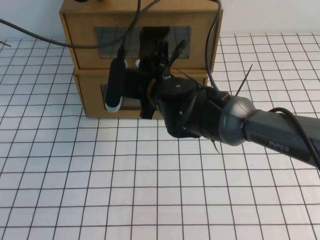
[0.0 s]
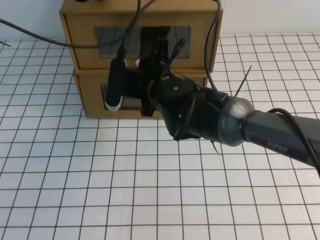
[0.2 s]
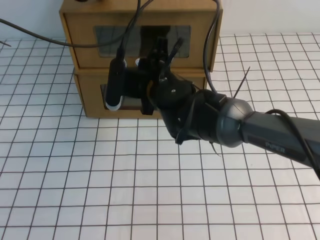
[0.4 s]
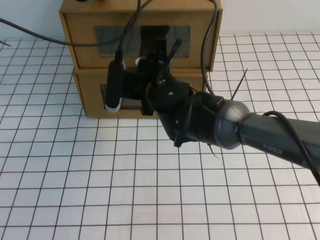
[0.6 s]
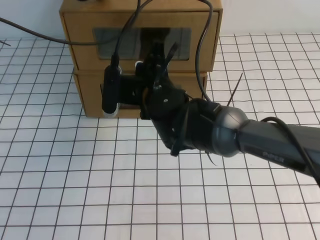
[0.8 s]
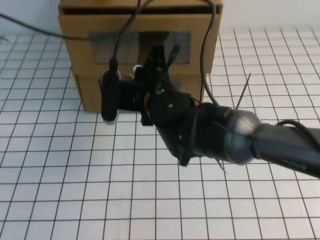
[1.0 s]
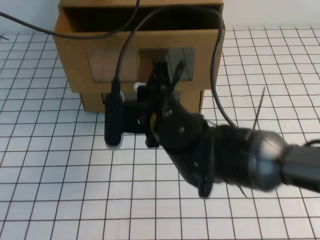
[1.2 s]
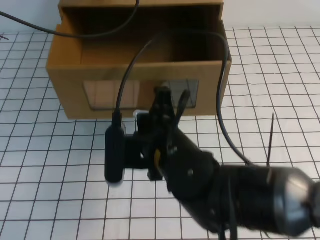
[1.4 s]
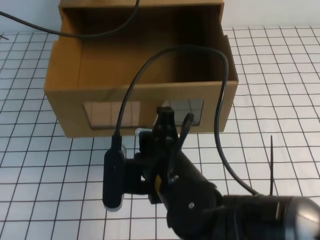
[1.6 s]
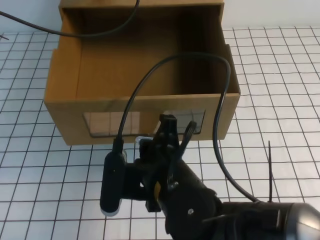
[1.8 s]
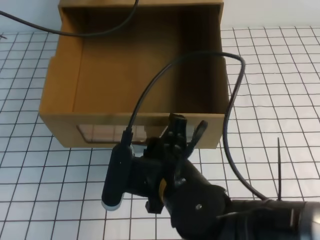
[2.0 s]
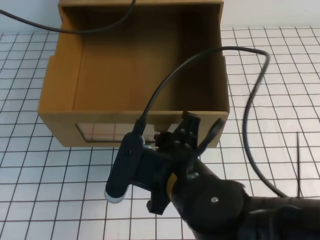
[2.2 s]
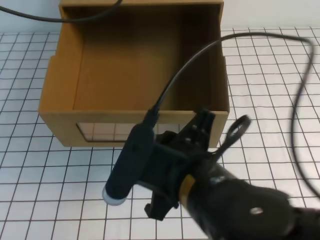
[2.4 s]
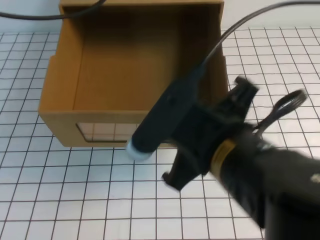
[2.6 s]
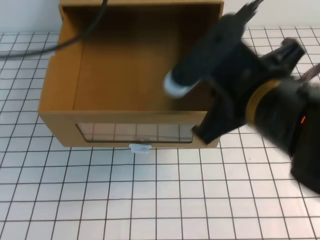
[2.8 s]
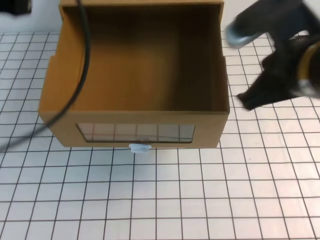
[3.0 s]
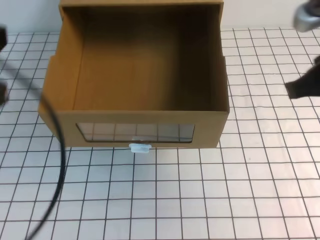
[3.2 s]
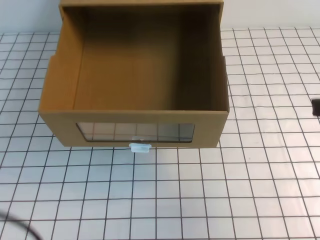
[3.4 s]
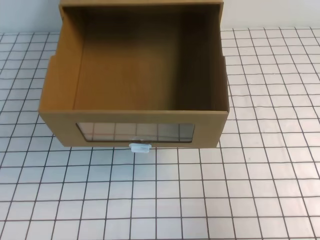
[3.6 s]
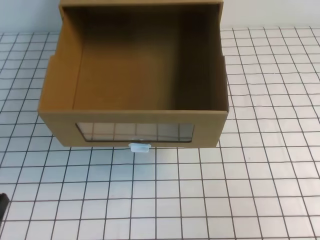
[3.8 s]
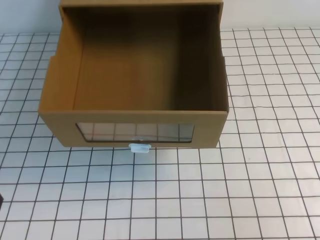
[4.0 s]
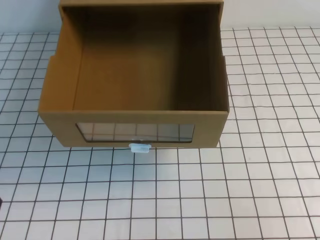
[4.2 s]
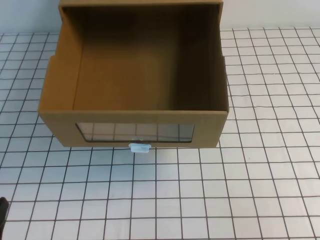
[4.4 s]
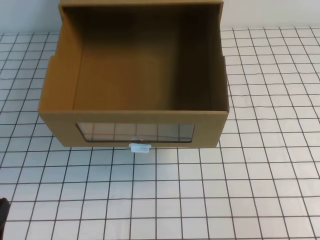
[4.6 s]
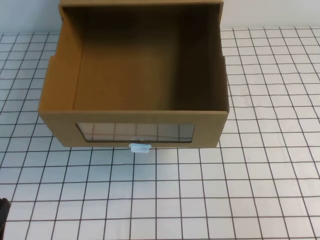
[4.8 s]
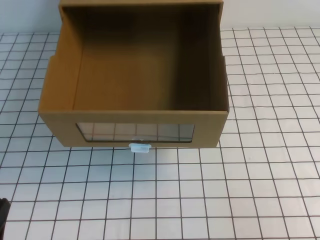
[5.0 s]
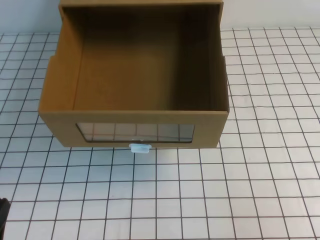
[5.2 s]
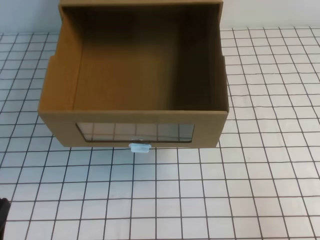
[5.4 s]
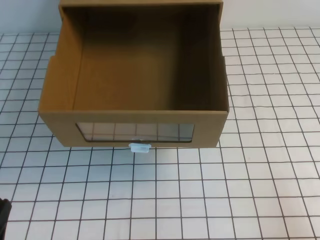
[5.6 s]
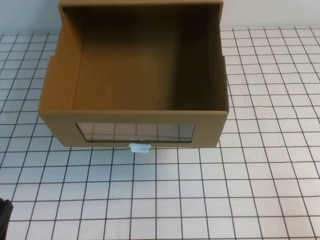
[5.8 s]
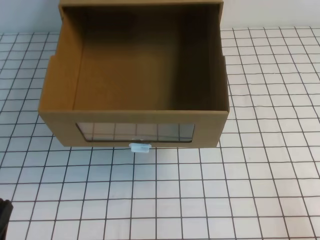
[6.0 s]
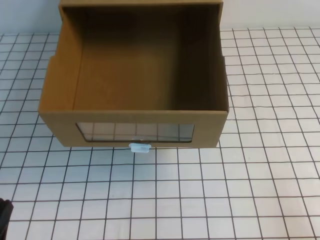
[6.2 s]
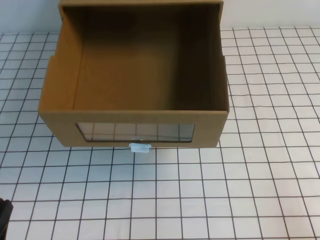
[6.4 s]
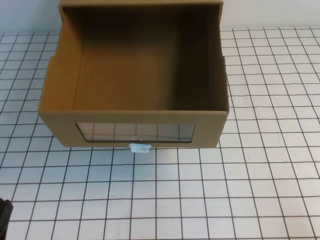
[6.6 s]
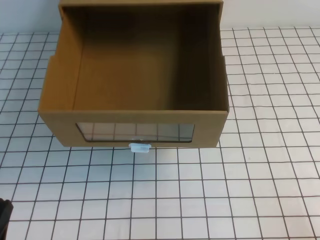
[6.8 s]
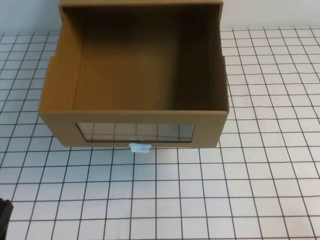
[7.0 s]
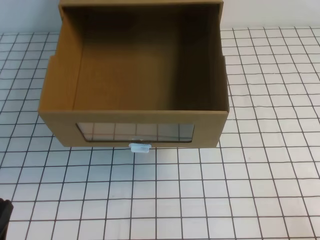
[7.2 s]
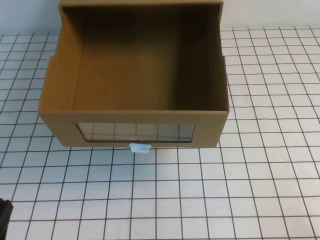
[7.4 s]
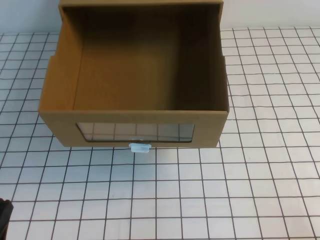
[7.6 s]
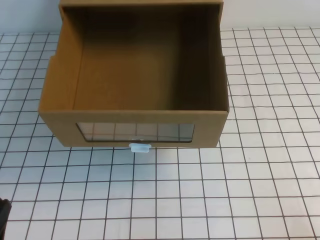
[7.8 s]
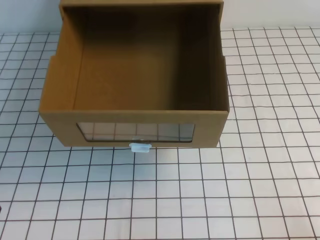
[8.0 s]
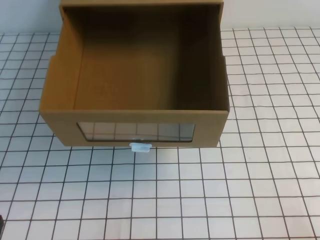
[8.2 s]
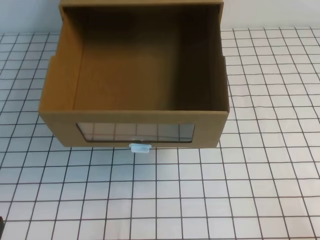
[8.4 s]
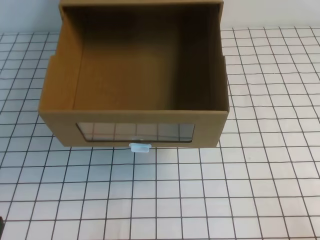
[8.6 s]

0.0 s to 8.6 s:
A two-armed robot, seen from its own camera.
Task of the whole recording: open the shoebox on the white tablecloth.
Step, 0.0 to 8.6 s: Open the shoe box.
0.0 to 1.4 s: The right gripper travels backward by roughly 10 cm, and closes its fingers.
1.4 to 2.8 s: The right gripper goes about 15 cm upward, backward and to the right, and opens, then closes again, while the left gripper travels backward and upward by some 15 cm.
2.8 to 4.4 s: The left gripper goes some 40 cm downward and backward. The right gripper shifts approximately 20 cm to the right.

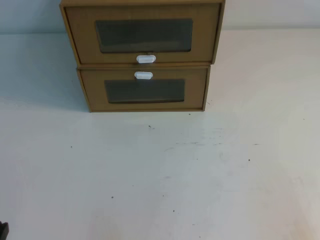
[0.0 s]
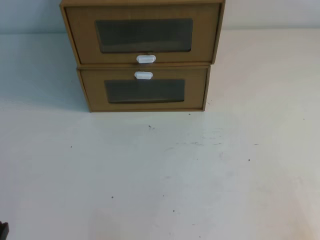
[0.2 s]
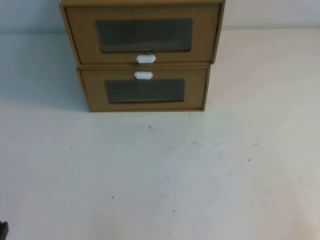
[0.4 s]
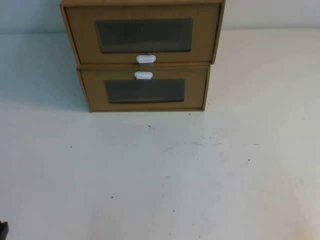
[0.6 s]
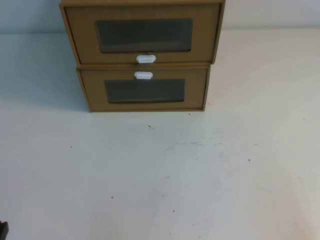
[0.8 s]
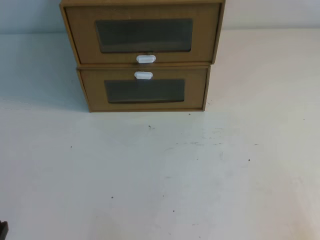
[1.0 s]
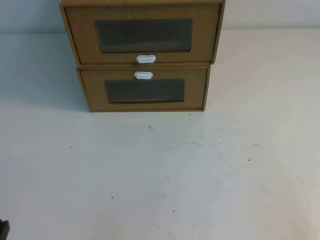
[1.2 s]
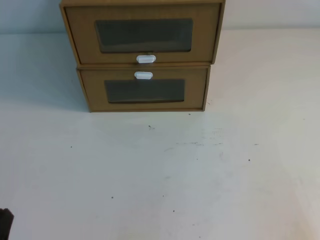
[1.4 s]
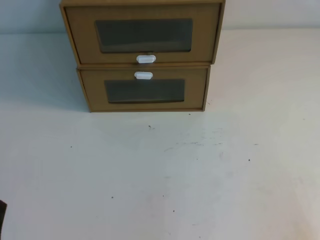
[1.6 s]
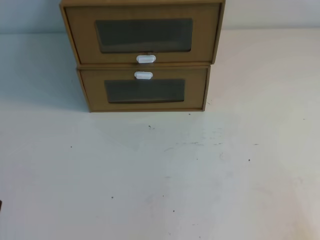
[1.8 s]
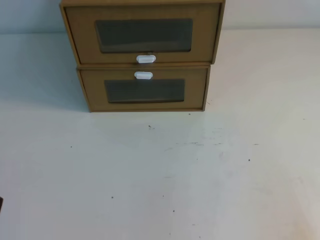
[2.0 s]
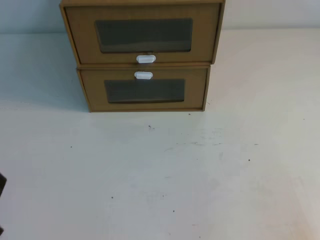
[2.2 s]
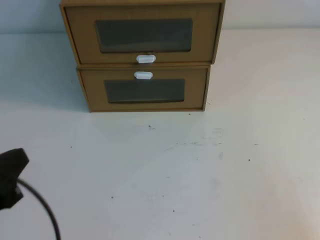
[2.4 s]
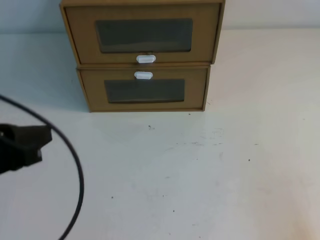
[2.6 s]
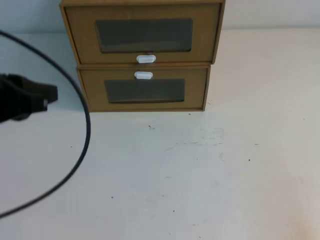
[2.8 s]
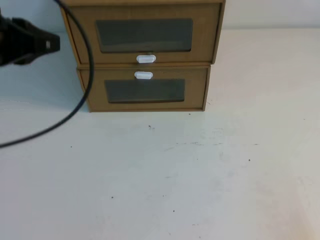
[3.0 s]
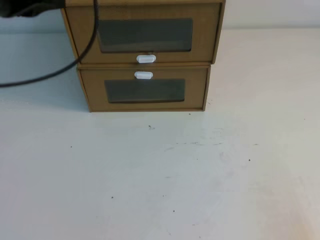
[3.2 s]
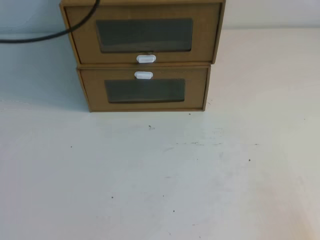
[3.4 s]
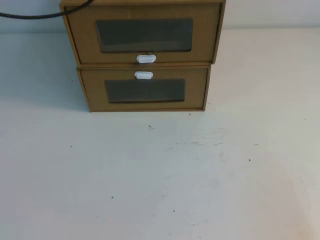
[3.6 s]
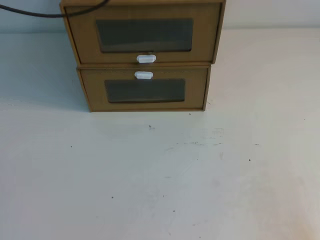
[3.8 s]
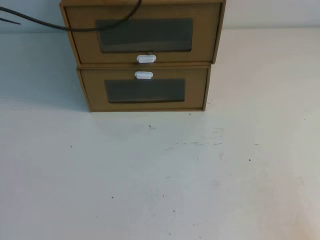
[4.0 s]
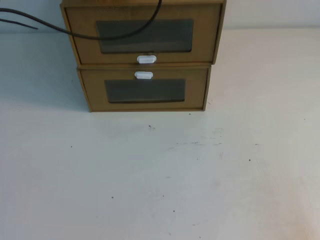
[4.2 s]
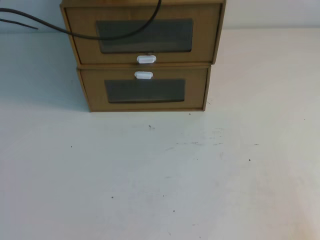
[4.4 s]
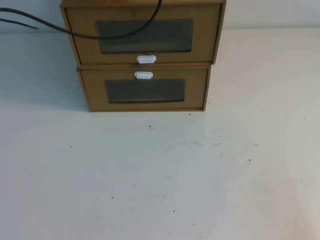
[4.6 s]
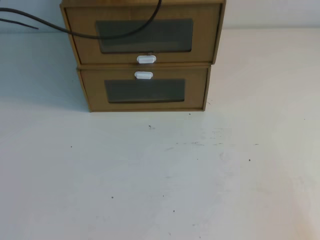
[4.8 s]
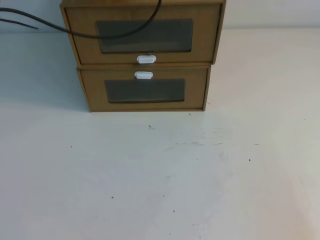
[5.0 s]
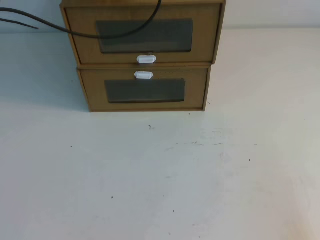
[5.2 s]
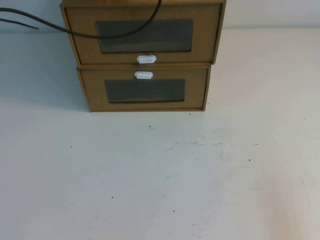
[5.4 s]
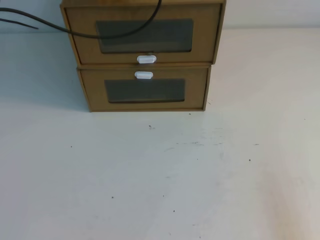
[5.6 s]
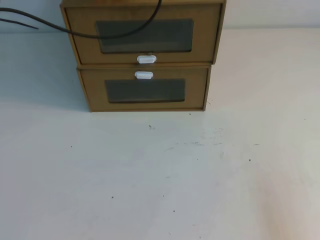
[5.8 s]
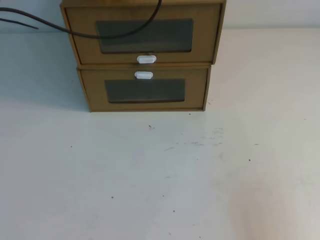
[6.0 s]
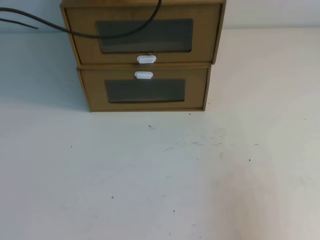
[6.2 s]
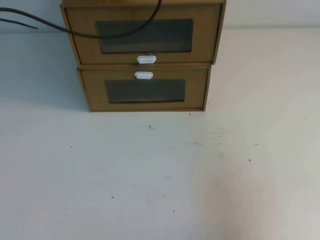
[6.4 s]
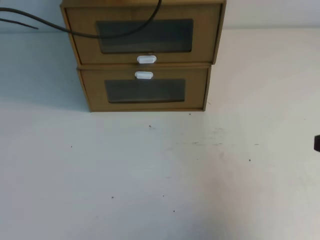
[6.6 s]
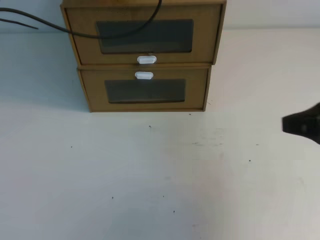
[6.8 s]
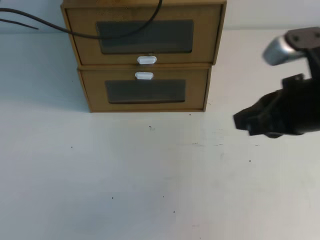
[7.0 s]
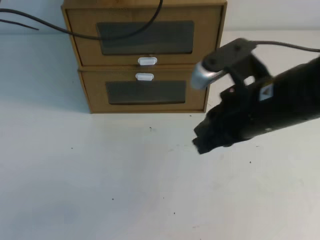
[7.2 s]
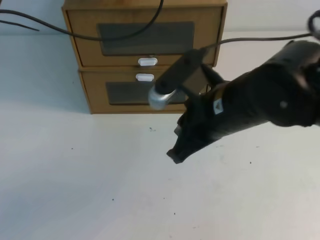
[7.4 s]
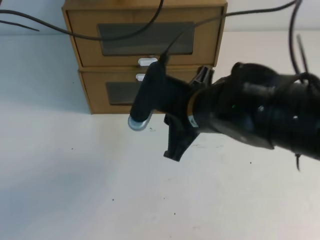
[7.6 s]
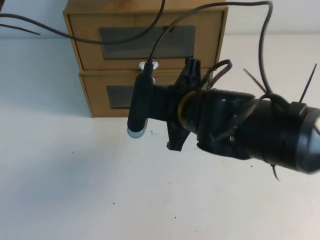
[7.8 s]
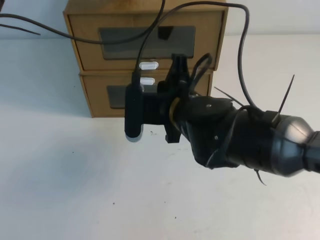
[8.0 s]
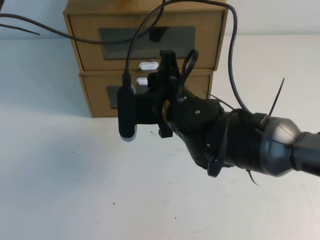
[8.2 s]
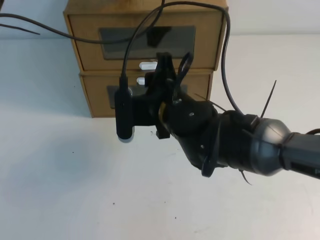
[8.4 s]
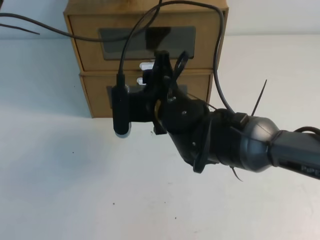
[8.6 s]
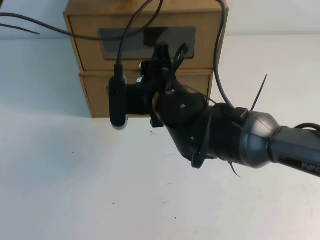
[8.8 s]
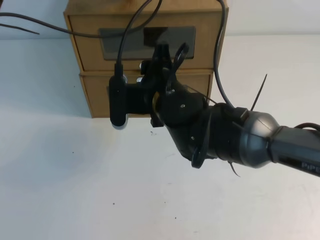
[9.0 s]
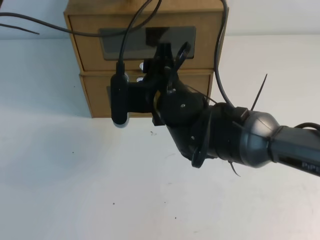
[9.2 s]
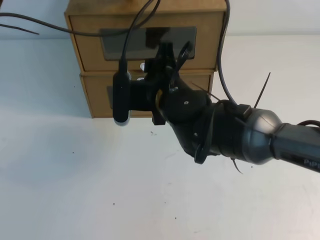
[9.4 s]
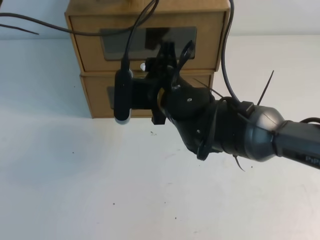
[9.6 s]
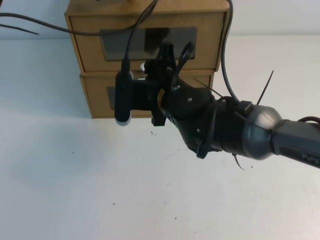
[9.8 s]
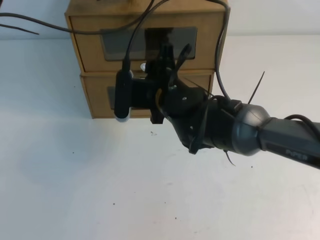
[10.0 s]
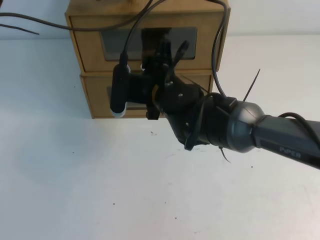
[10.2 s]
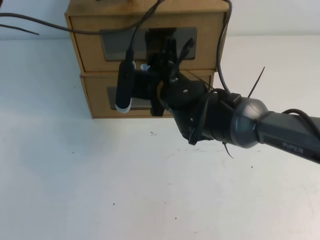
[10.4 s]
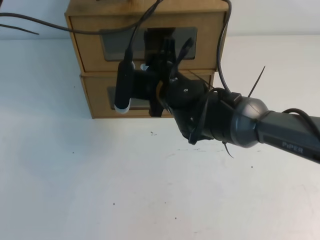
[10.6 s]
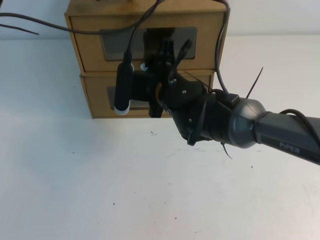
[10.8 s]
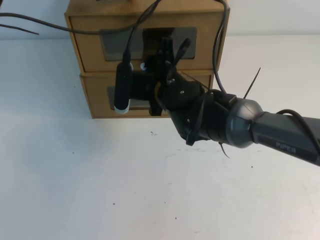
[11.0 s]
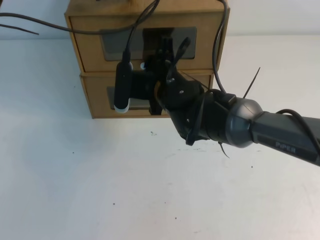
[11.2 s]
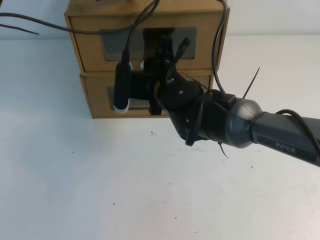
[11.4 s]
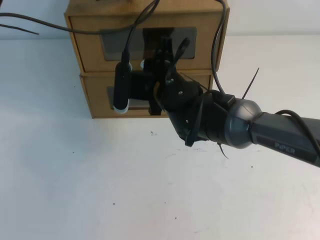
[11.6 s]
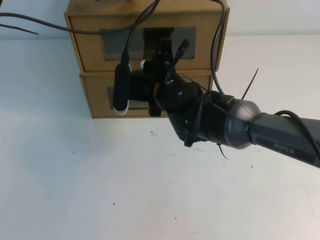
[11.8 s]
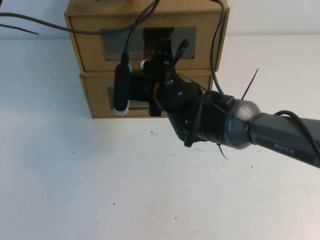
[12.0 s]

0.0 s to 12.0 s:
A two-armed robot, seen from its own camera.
Task of the whole recording: open the shoebox on the table.
1.6 to 3.0 s: The left gripper shifts about 30 cm upward and forward.
3.0 to 4.4 s: The left gripper shifts some 20 cm forward.
6.0 to 7.6 s: The right gripper heads to the left and forward, covering roughly 30 cm.
7.6 to 9.0 s: The right gripper goes some 10 cm to the left and forward, and opens up.
9.0 to 10.4 s: The grippers move only a little.
10.4 to 12.0 s: The right gripper closes.

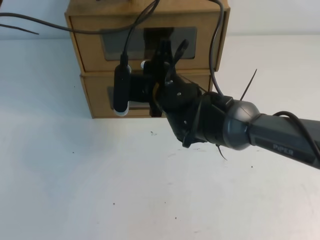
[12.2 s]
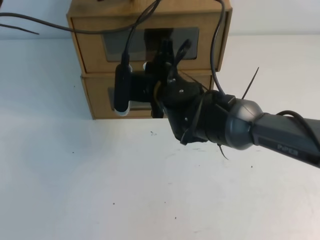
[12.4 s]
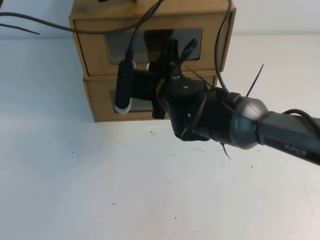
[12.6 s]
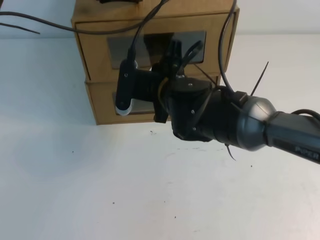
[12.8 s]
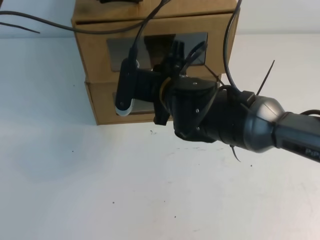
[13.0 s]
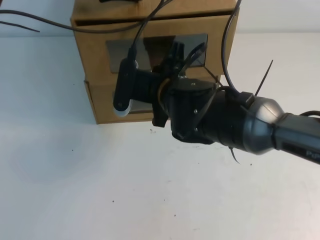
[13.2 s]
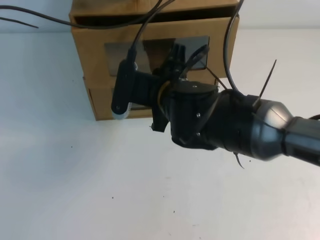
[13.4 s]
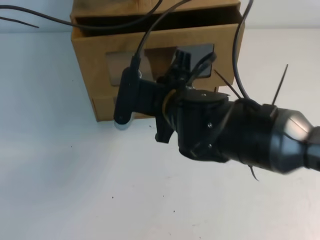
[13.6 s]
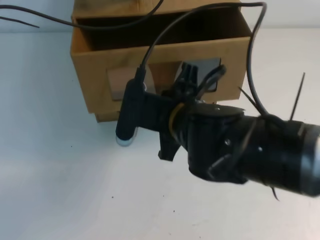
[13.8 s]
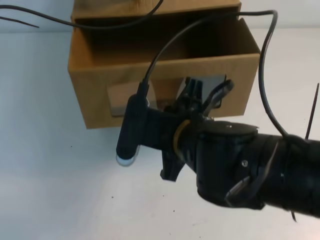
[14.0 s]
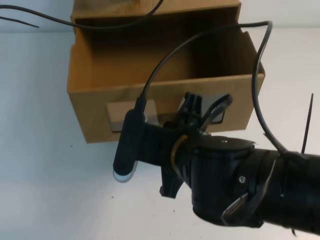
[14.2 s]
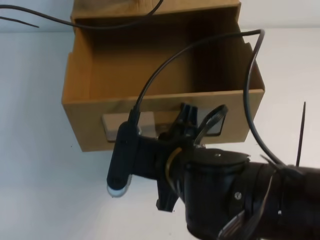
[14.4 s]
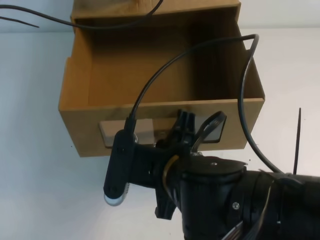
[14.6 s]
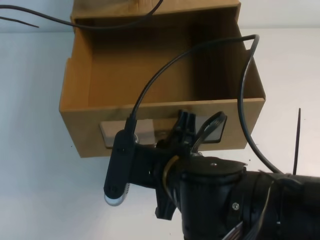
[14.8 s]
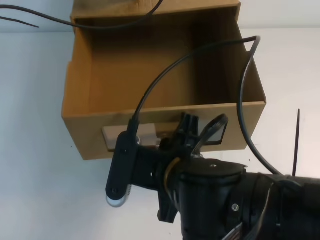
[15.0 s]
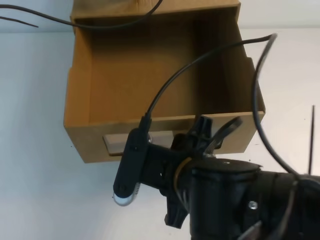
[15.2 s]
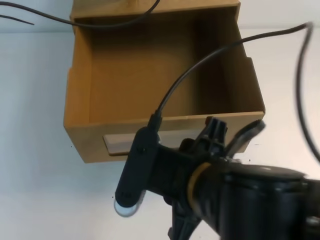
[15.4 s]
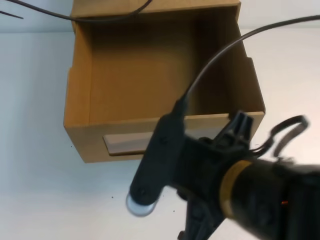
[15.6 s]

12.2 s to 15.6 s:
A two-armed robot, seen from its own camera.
Task of the whole recording: open the shoebox on the table.
12.2 to 13.8 s: The right gripper is displaced backward by approximately 10 cm.
13.8 to 15.6 s: The right gripper is displaced backward and upward by approximately 15 cm, and opens.
